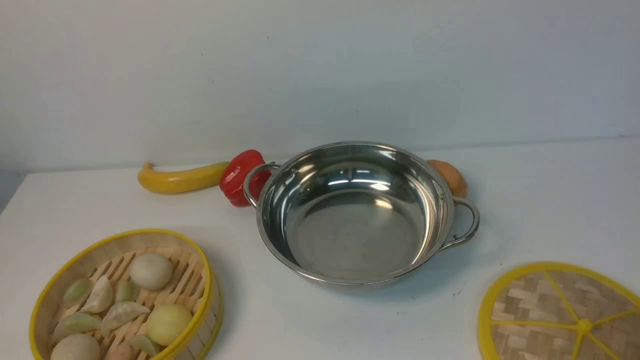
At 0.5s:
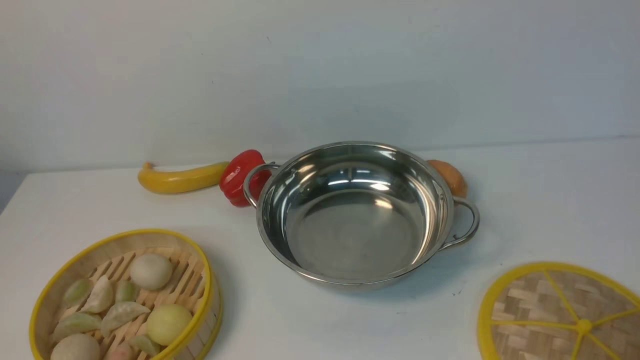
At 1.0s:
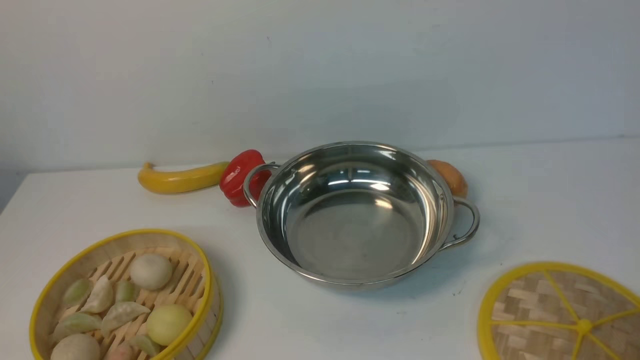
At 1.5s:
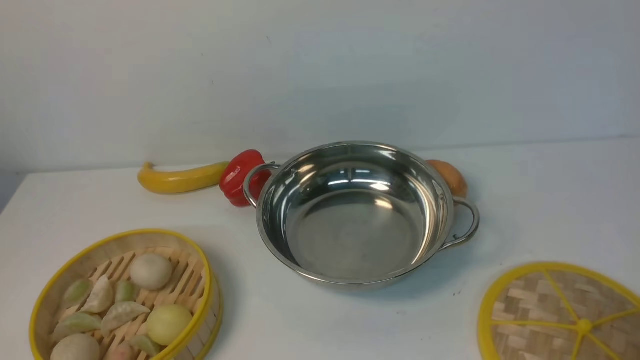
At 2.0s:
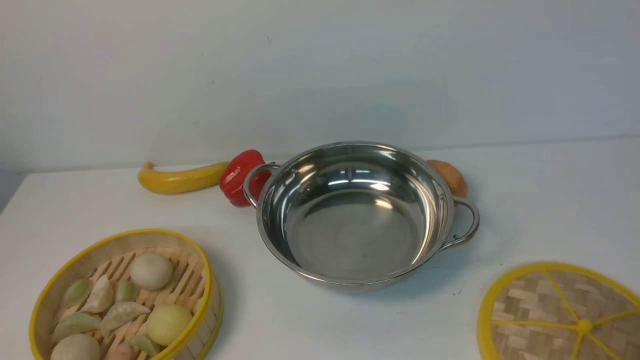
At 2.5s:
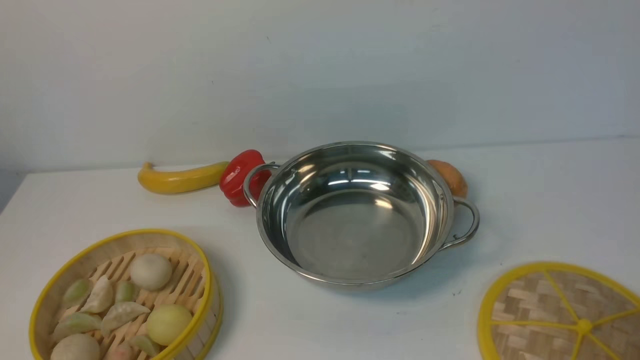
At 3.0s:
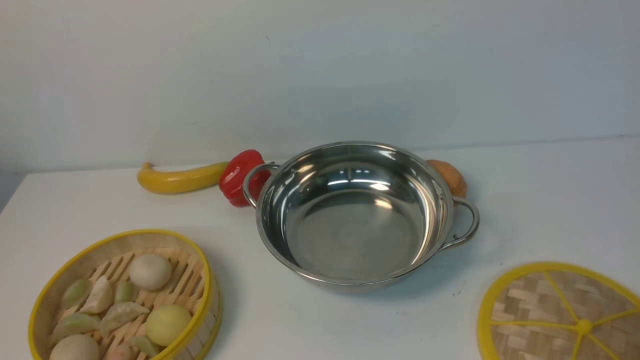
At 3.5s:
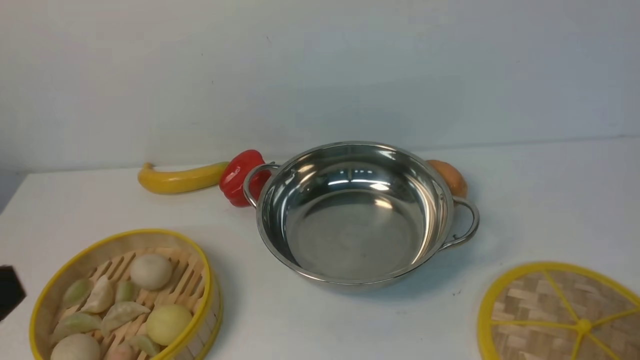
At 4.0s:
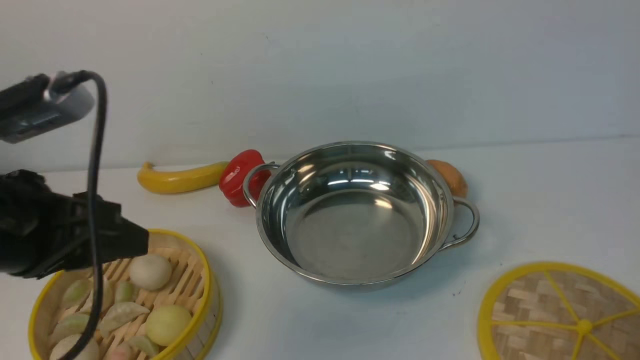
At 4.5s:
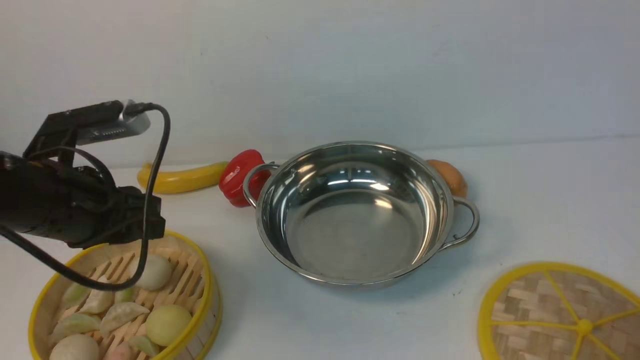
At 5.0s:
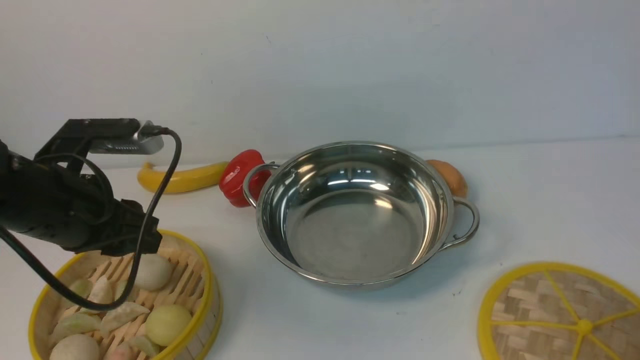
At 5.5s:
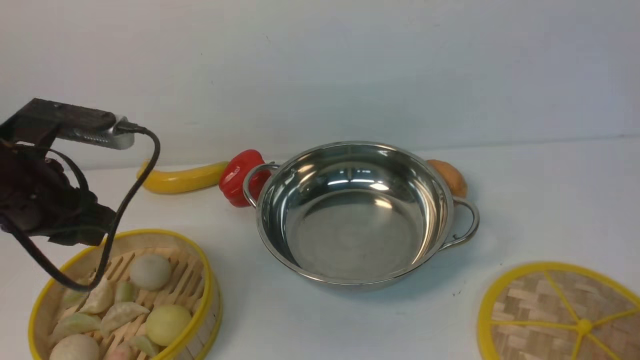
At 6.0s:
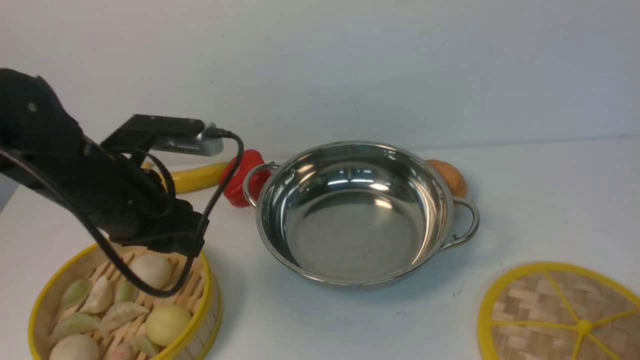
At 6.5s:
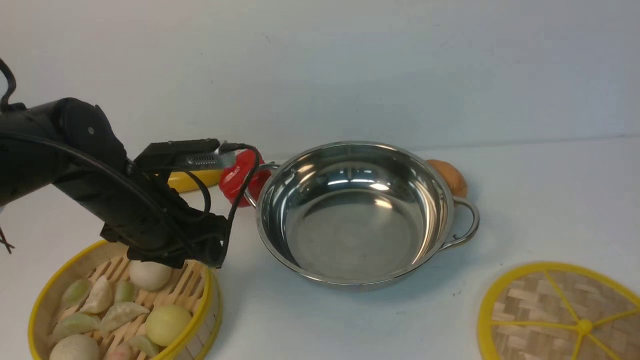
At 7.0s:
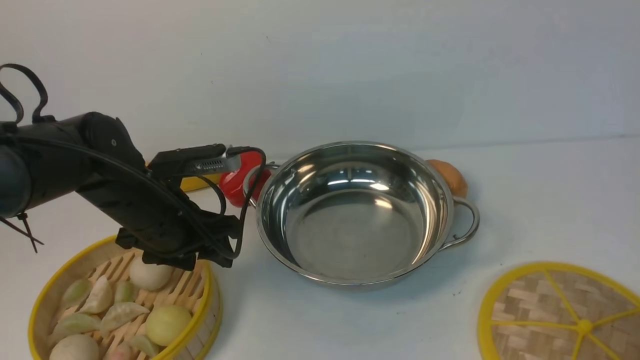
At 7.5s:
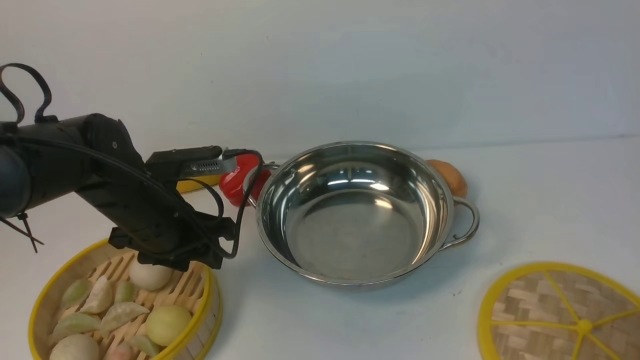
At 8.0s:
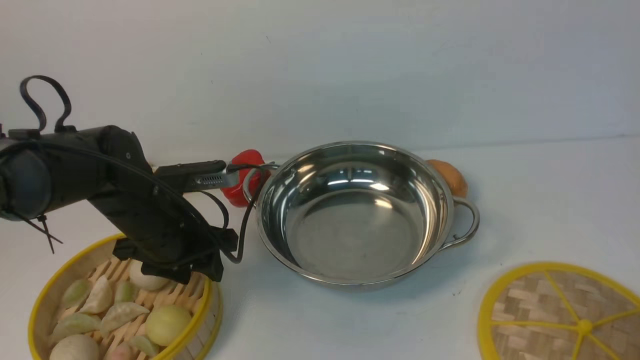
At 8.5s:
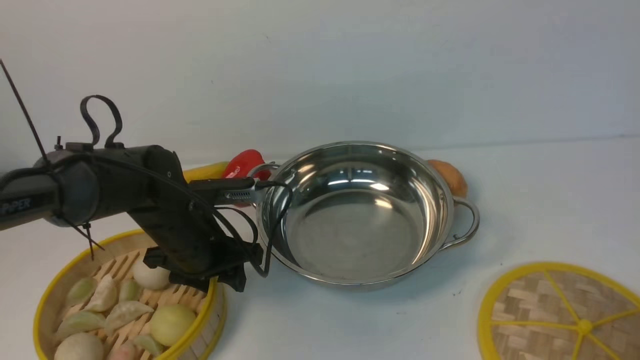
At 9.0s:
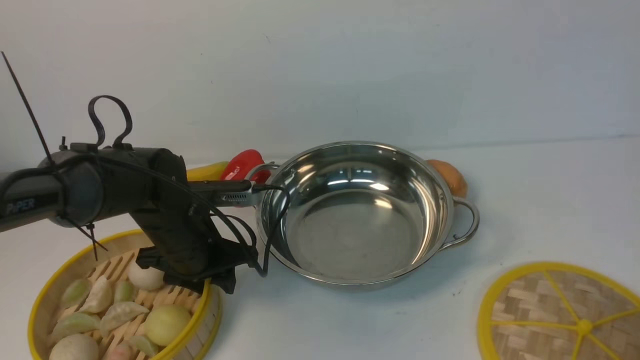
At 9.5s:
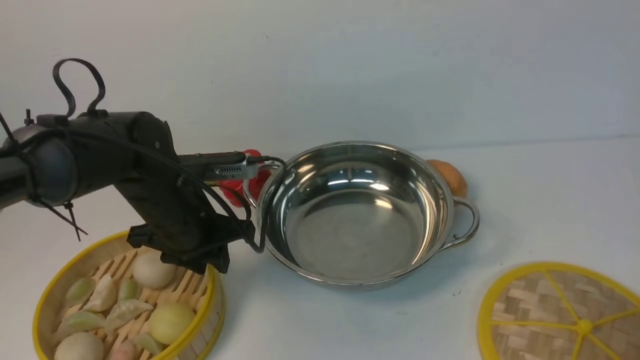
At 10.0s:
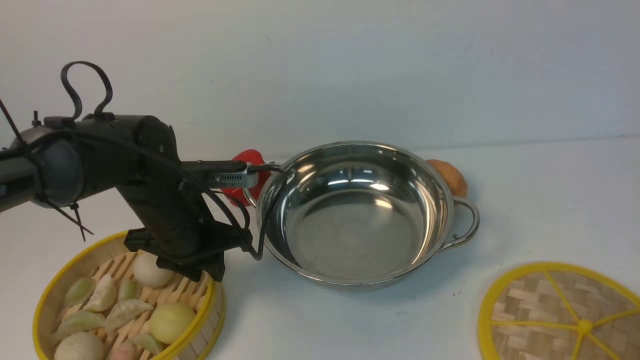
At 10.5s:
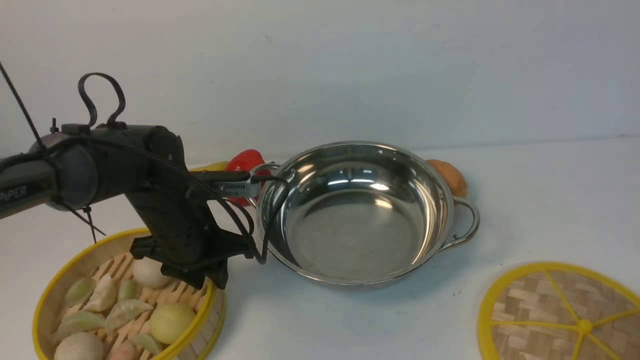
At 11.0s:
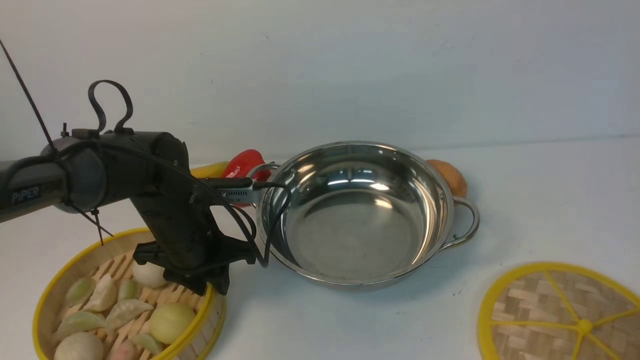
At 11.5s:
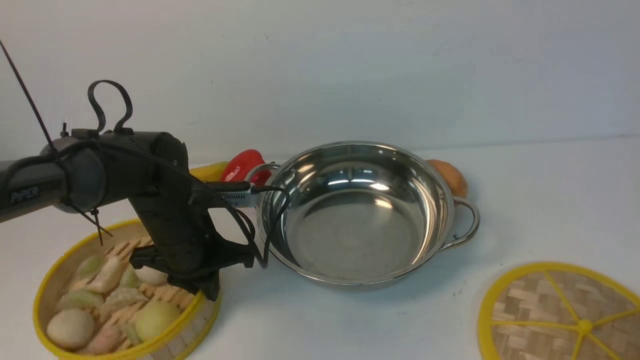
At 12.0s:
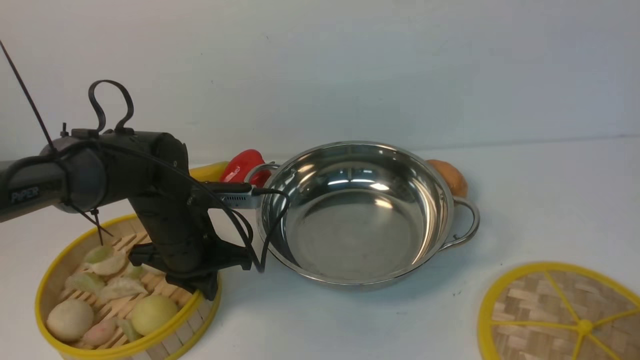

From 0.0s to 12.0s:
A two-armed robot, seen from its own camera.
Task of the whole recording: place the steamer in the pot on the white table, and put the lid on the steamer.
From 0.0s to 2.0s: Neither gripper changes place.
From 2.0s to 4.0s: The left gripper is displaced upward and forward by some 25 cm.
From 4.0s to 6.0s: The left gripper moves forward and downward, approximately 10 cm.
From 6.0s to 8.0s: The left gripper moves downward, roughly 10 cm.
From 8.0s to 10.0s: The grippers move only a little.
From 10.0s to 12.0s: The left gripper closes its fingers.

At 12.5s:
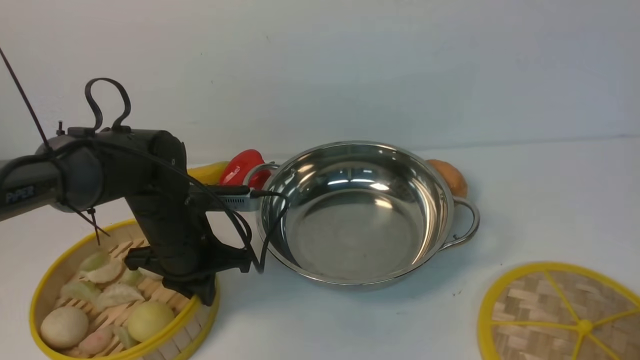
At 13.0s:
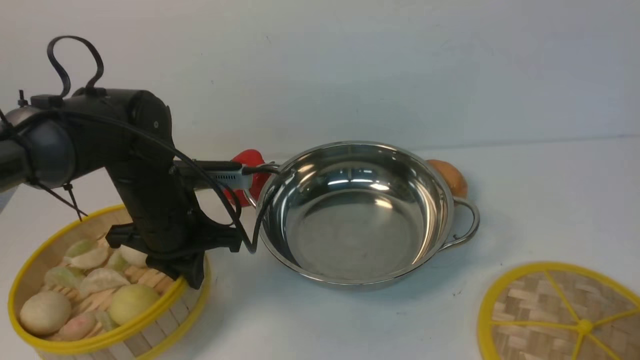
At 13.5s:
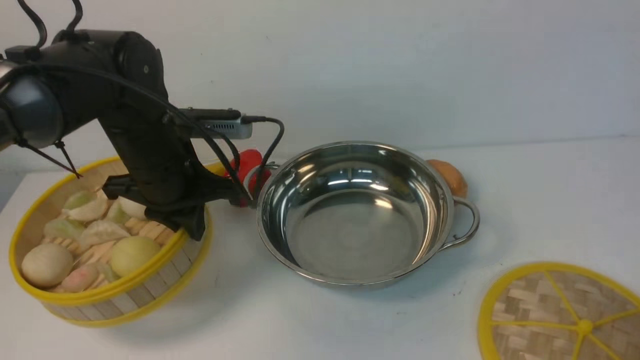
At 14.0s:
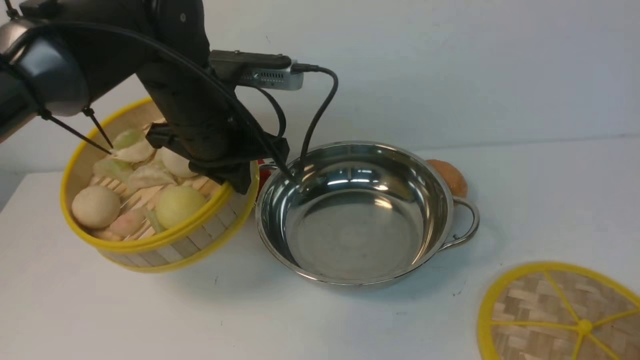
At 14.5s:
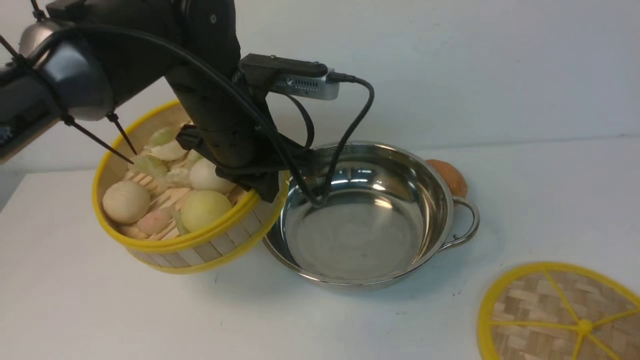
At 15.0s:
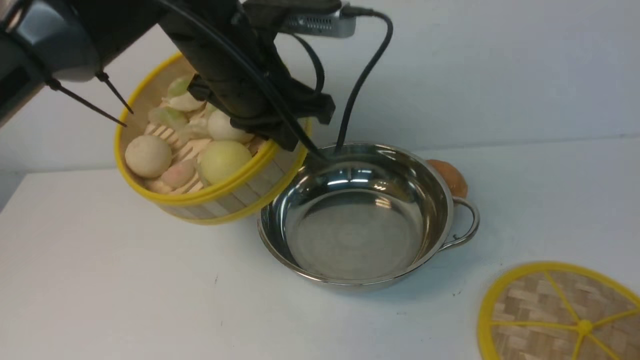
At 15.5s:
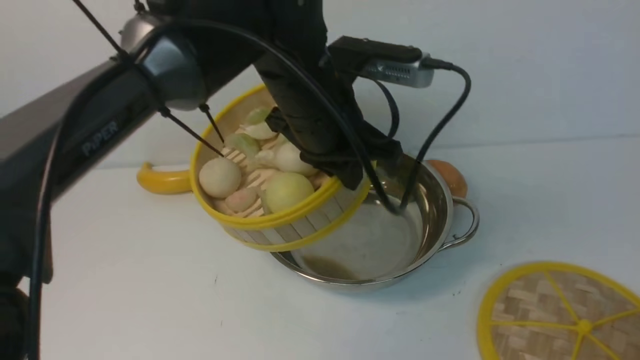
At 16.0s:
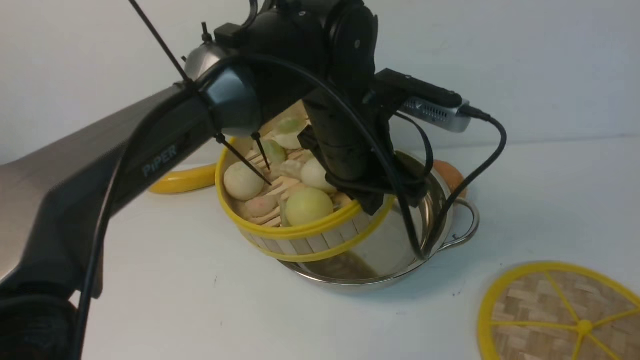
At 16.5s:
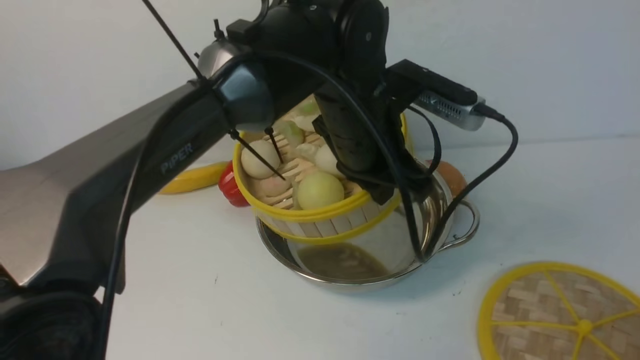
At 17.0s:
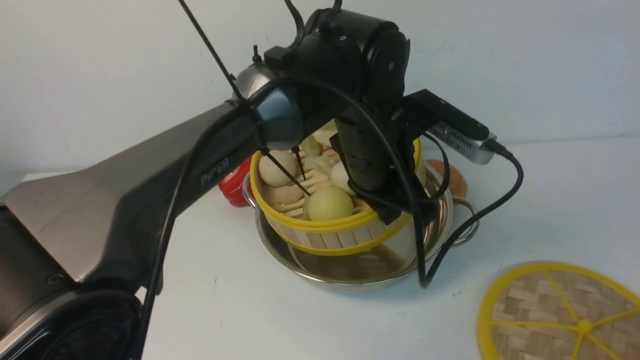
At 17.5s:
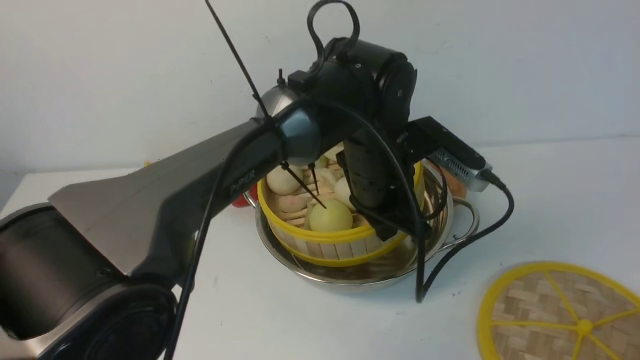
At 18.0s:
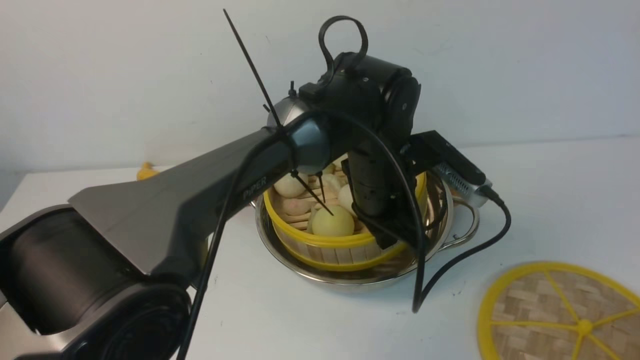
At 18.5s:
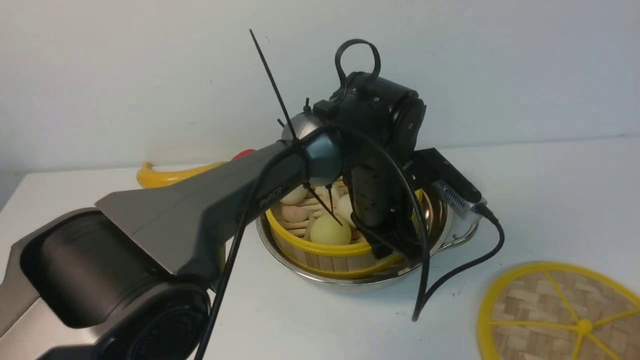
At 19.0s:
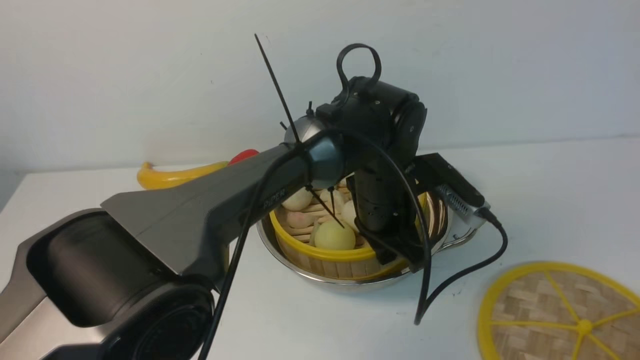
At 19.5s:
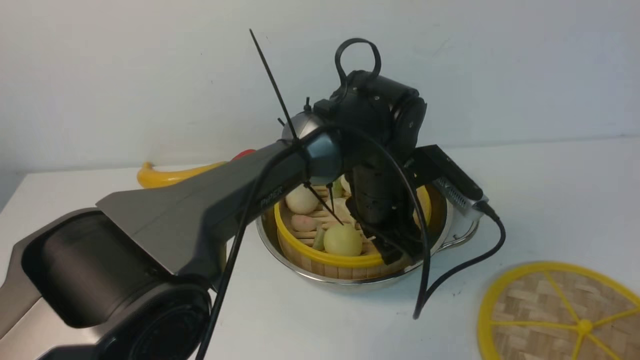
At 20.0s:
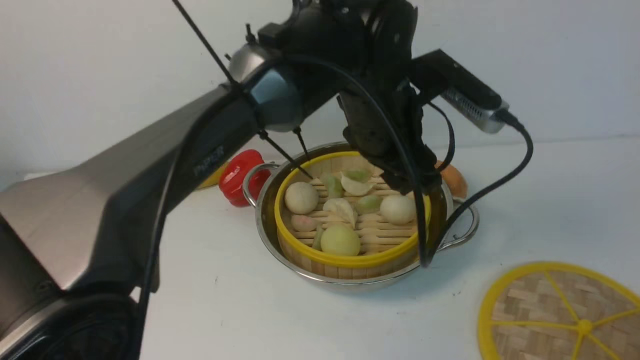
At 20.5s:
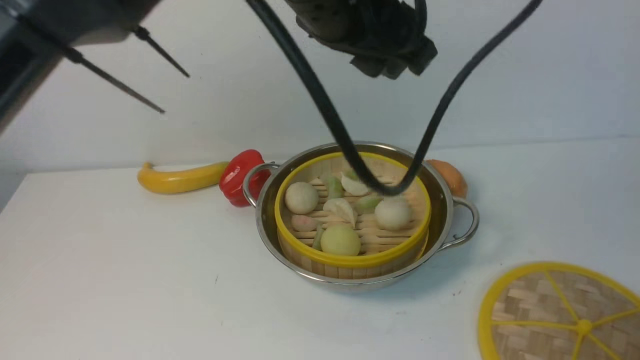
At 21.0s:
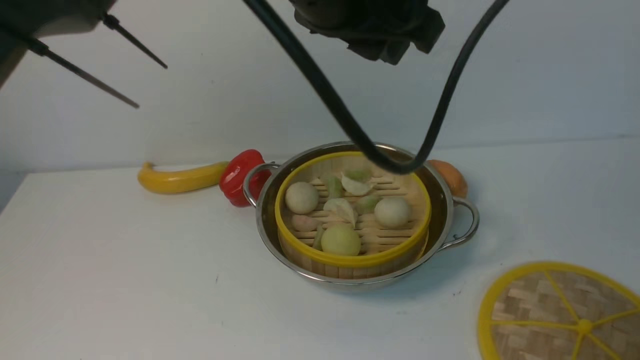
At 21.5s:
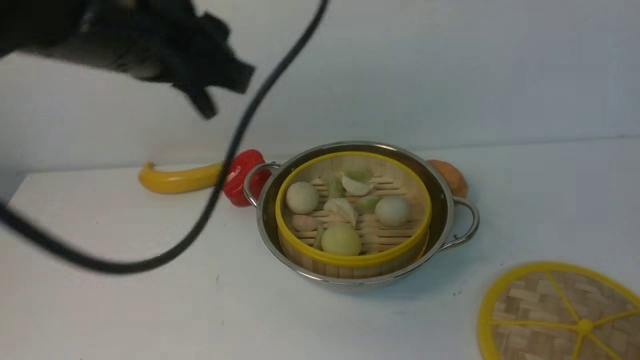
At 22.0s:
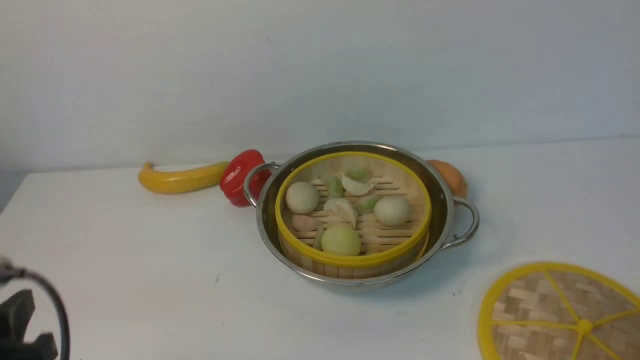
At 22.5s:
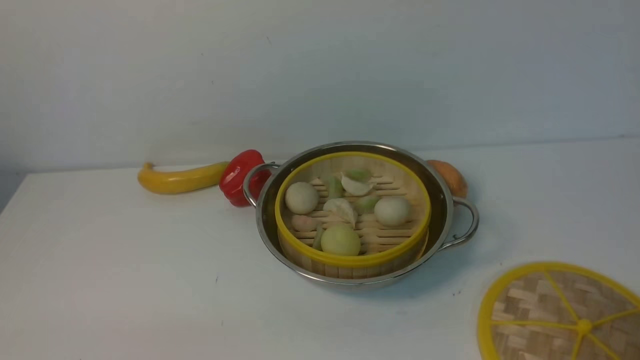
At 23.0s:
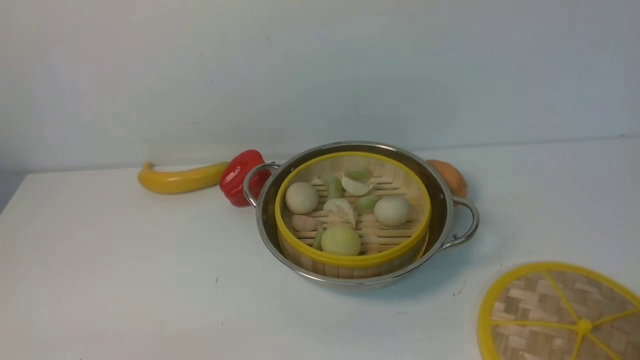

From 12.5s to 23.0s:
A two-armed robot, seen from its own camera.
Task of the whole recording: place the steamer in the pot on the white table, and put the lid on the steamer.
Step, from 13.5s to 20.0s: use the left arm to put the steamer into the iron steamer pot in the middle.
From 12.5s to 14.5s: The left gripper shifts roughly 15 cm upward and to the right.
From 14.5s to 16.5s: The left gripper is displaced to the right by about 10 cm.
From 16.5s to 19.0s: The left gripper travels downward by roughly 10 cm.
From 19.0s to 21.0s: The left gripper goes roughly 25 cm upward, and opens.
From 21.0s to 23.0s: The left gripper moves downward, to the left and backward, some 50 cm.
